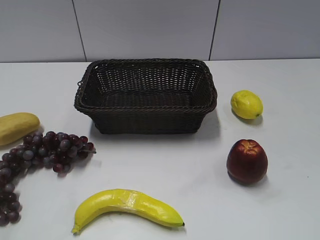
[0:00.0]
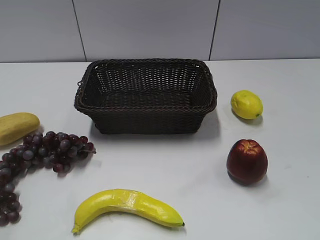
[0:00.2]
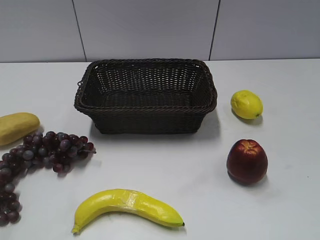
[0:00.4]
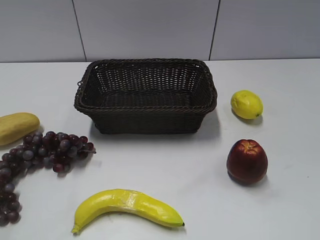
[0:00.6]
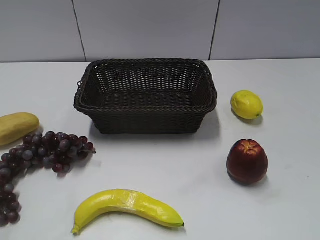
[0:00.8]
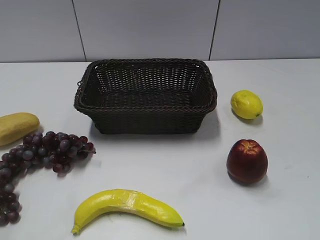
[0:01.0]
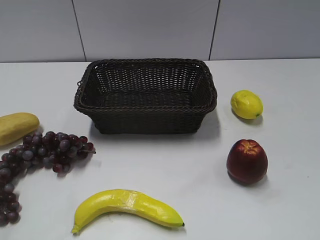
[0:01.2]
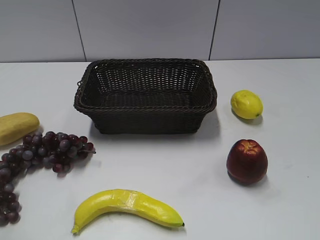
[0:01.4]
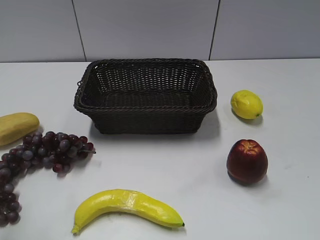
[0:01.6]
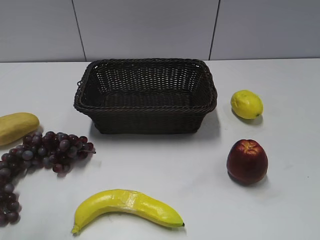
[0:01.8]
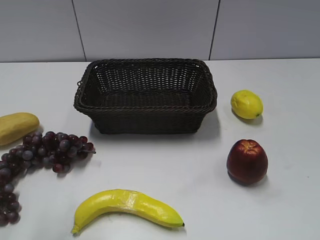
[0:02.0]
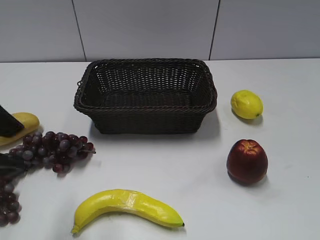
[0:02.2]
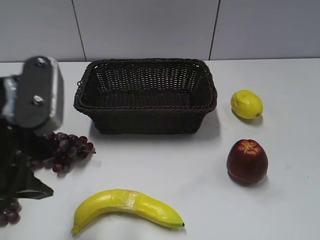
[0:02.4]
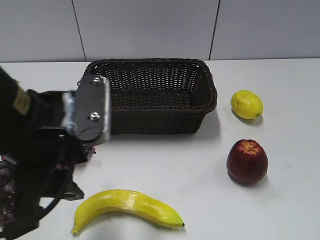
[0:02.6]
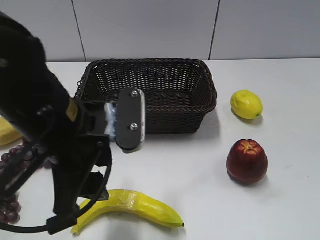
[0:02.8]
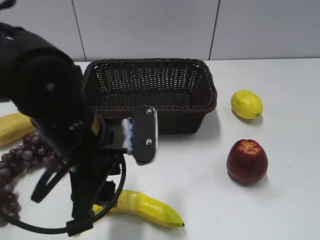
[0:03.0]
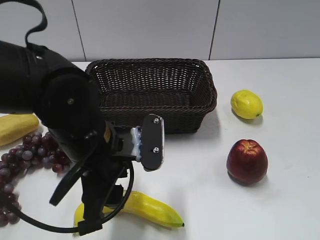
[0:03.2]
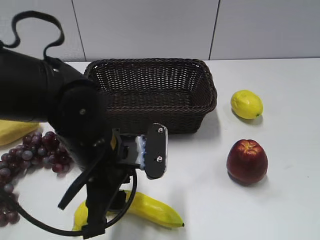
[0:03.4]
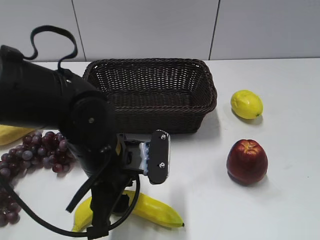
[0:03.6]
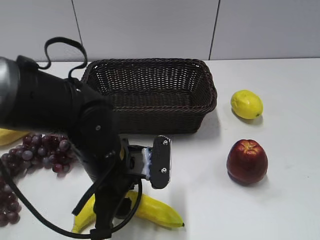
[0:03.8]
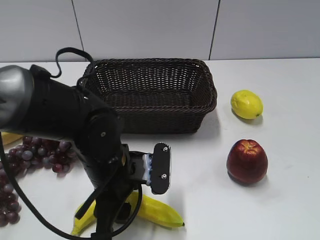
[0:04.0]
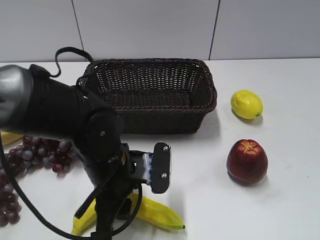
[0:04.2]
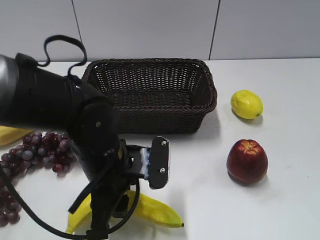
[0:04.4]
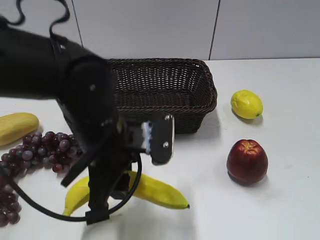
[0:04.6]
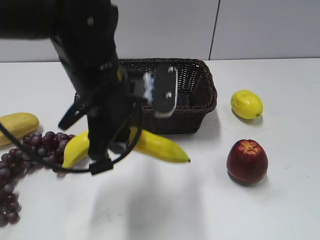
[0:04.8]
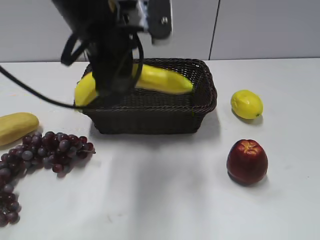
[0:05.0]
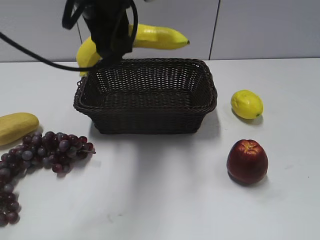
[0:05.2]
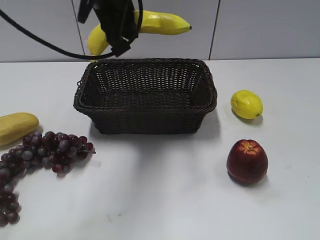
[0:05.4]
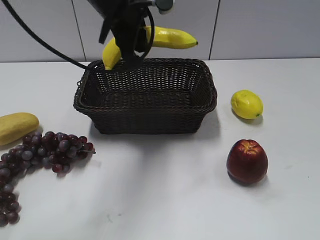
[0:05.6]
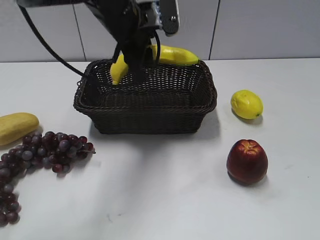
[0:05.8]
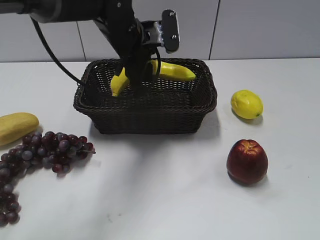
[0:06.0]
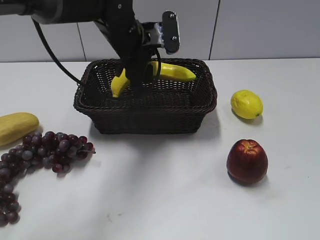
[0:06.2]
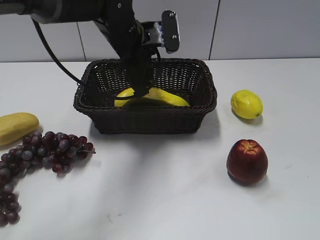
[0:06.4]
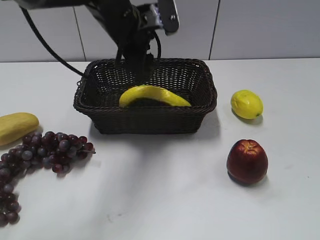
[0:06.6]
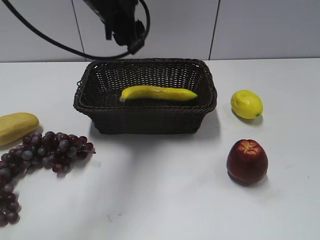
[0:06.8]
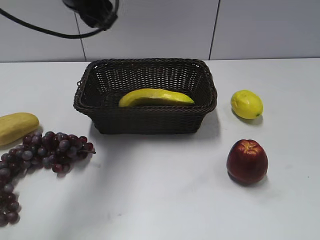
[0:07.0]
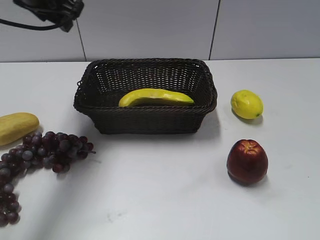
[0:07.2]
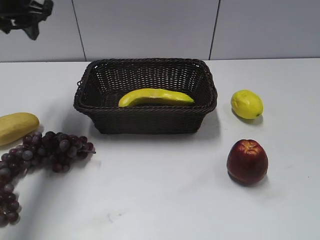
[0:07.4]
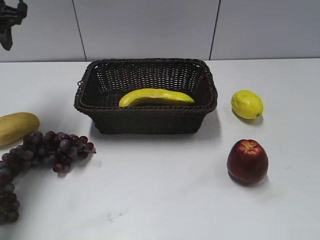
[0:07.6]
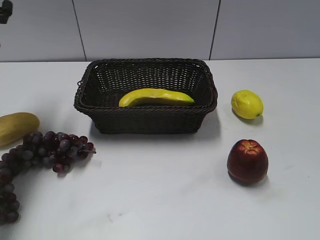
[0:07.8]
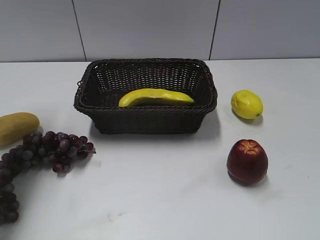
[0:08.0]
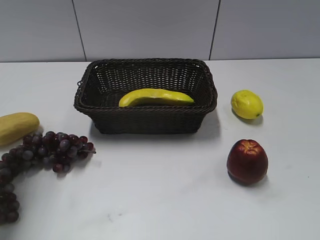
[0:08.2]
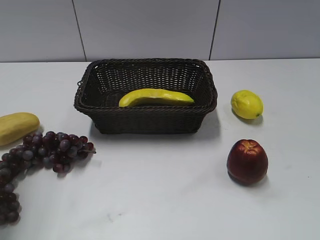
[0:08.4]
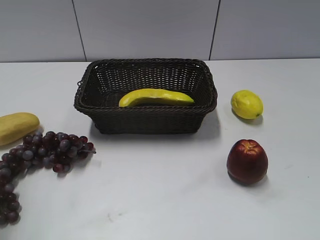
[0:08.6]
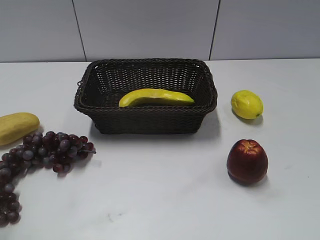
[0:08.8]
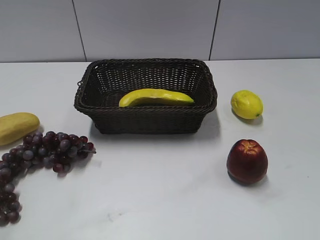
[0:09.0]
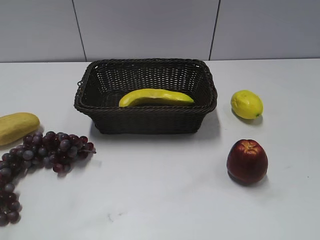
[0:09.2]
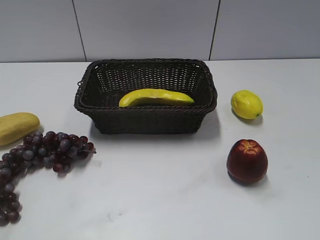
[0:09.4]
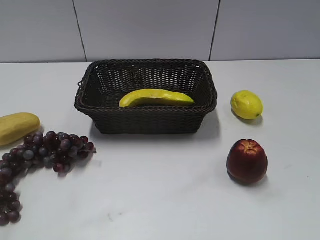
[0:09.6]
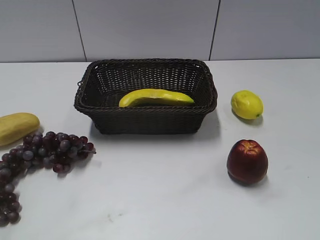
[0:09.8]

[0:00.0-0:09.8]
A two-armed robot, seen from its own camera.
Step, 0:02.2 to 0:04.0: Grasp the banana with left gripper.
Step, 0:04.2 to 0:06.4: Place the banana in the basket with left gripper.
0:01.4 to 0:02.8: The left gripper is displaced to the right, forward and downward by some 25 cm.
0:02.8 to 0:04.2: The left gripper shifts roughly 10 cm downward, and closes.
0:04.2 to 0:05.6: The left gripper shifts about 25 cm forward and upward.
0:05.6 to 0:07.0: The left gripper moves to the left, approximately 10 cm, and opens up.
0:07.0 to 0:08.4: The left gripper shifts approximately 25 cm backward and to the left.
0:08.4 to 0:09.8: The left gripper moves backward and downward, approximately 25 cm.
